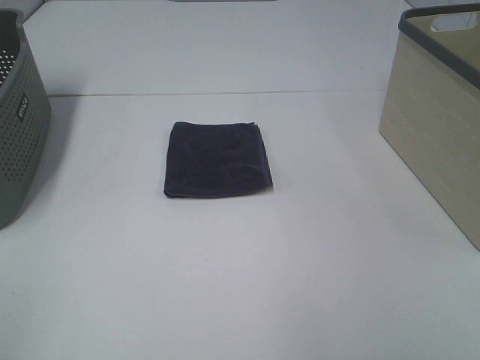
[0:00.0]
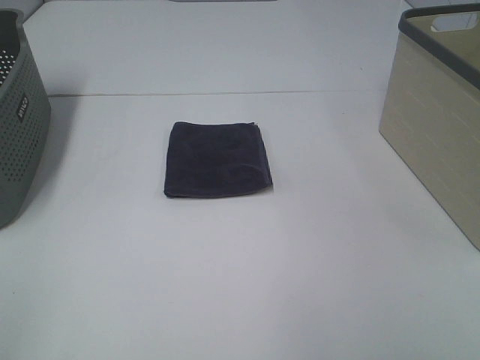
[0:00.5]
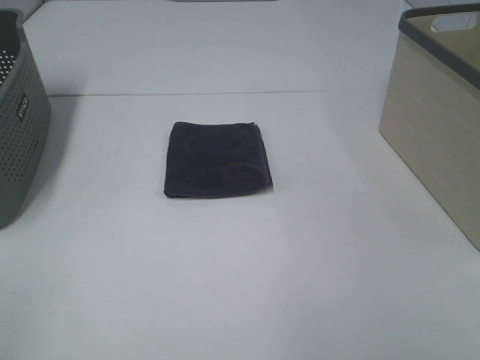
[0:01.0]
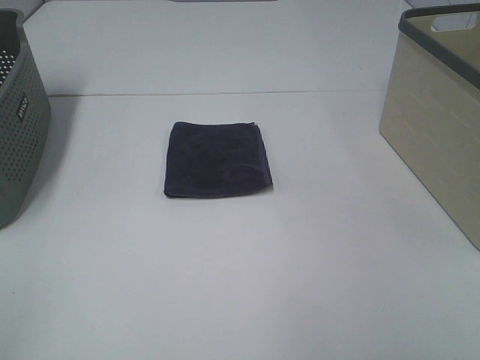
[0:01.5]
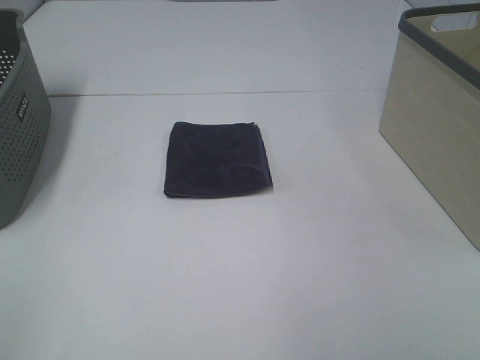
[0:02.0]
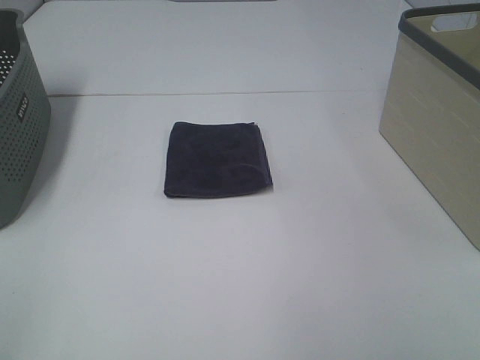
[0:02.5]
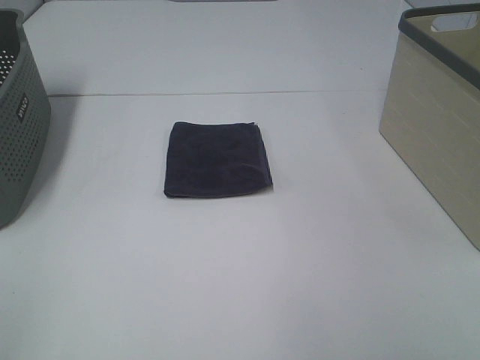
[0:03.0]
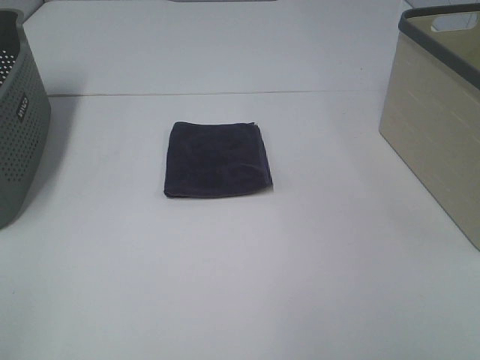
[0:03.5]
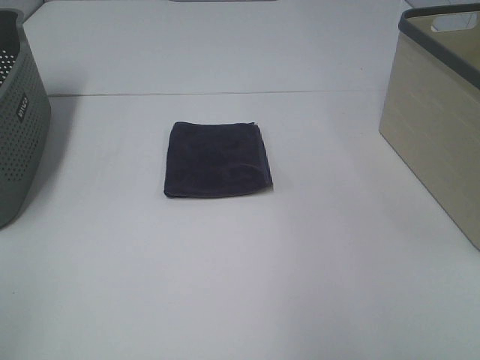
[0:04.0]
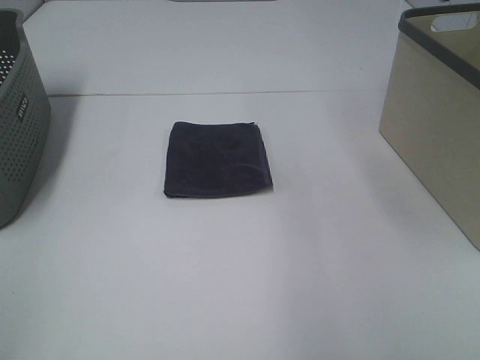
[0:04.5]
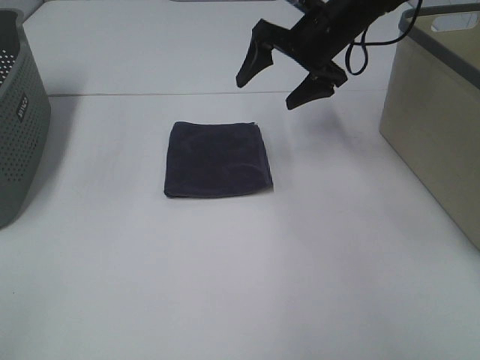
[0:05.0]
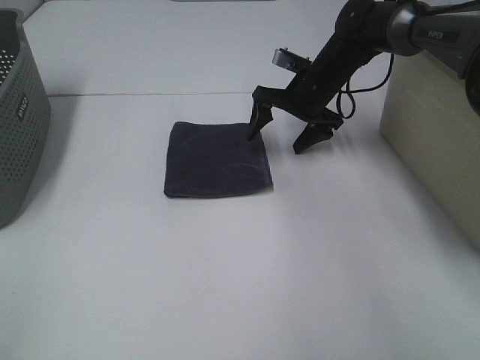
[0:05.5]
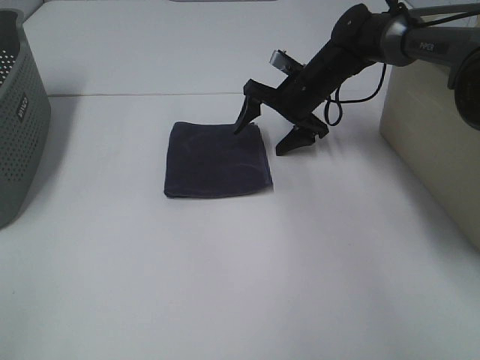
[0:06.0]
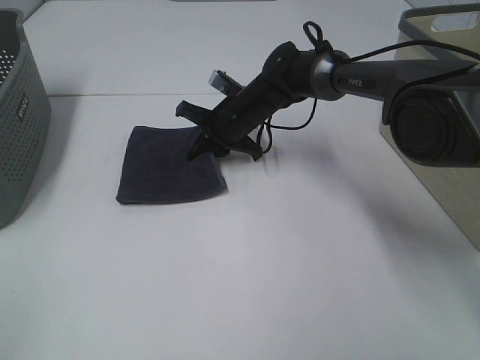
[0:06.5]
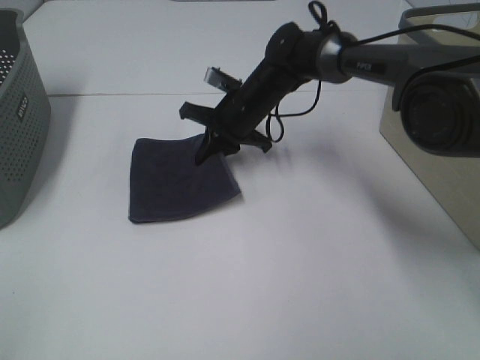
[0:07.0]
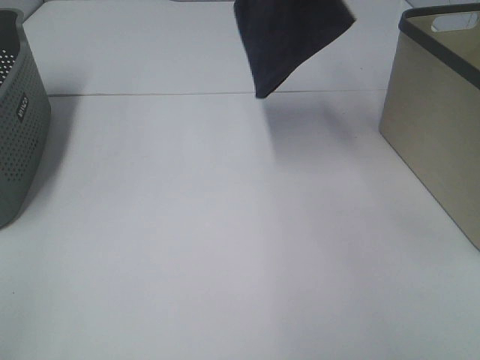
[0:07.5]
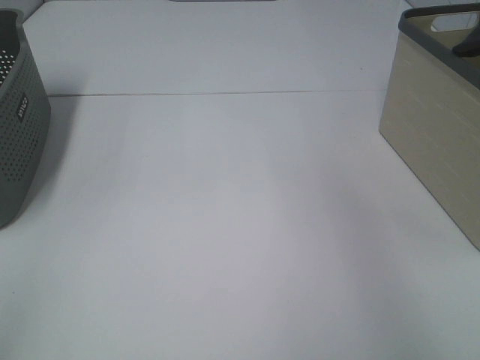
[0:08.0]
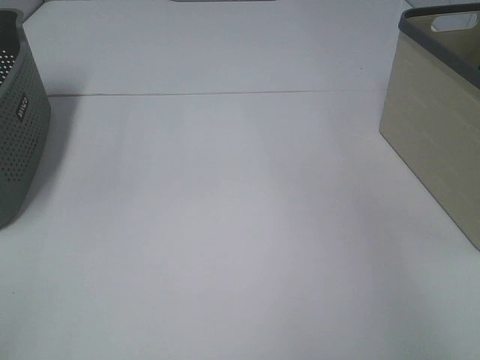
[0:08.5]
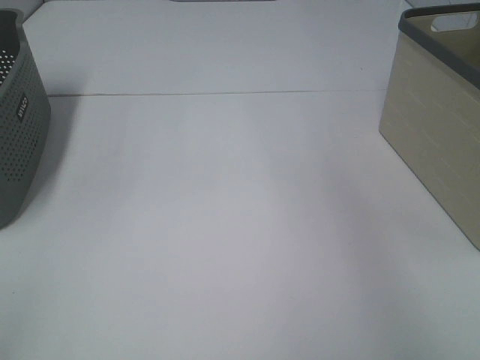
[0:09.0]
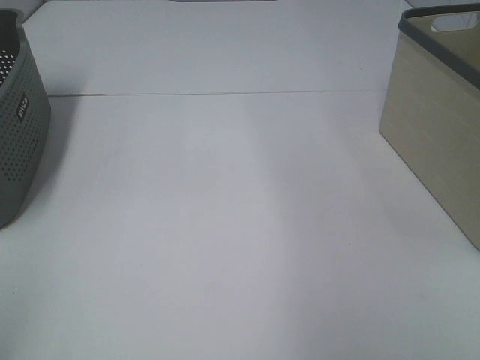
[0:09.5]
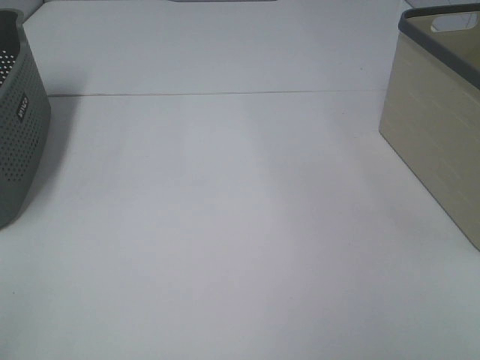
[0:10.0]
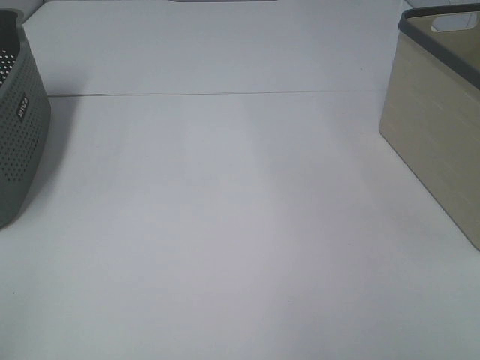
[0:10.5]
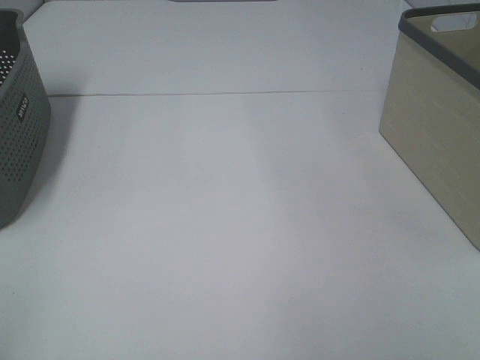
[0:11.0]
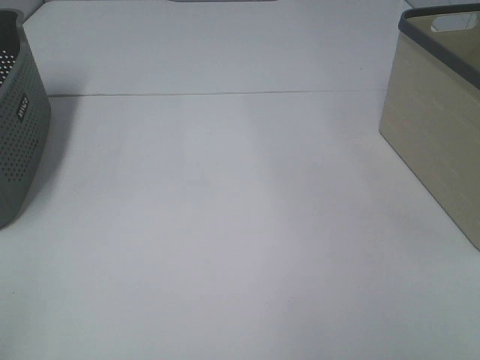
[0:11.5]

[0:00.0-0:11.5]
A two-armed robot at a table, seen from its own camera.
Step, 0:00.0 to 0:06.0: Right hand: grab the folded grey towel.
Step, 0:06.5 to 0:08.5: Right hand: place the grey towel in right basket.
0:00.0 to 0:02.0: Neither gripper changes place.
0:04.0 to 0:06.0: The right gripper travels forward, downward and to the left by some 50 cm.
0:06.0 to 0:07.5: The right gripper heads upward, covering approximately 25 cm, and closes up.
0:07.5 to 0:09.5: The right gripper moves backward and to the right, about 30 cm, and opens.

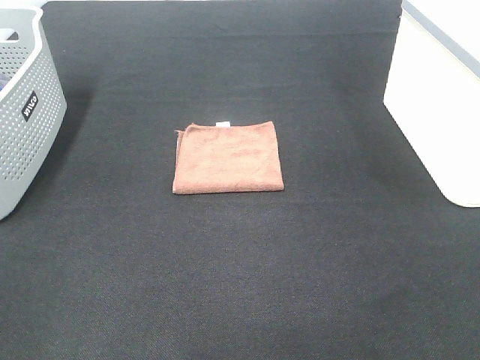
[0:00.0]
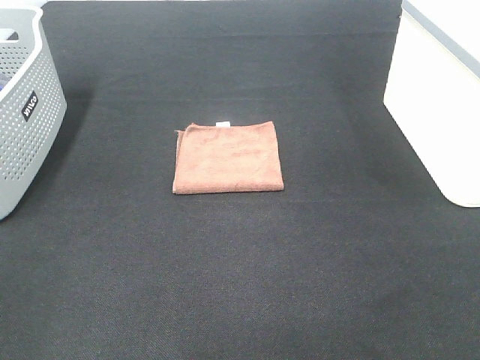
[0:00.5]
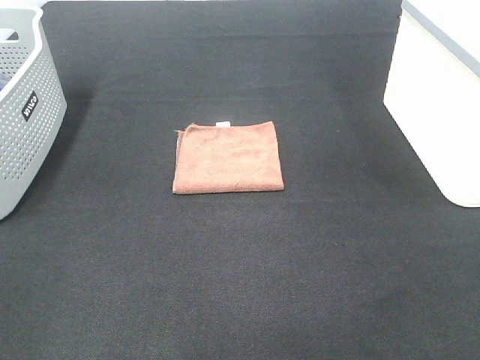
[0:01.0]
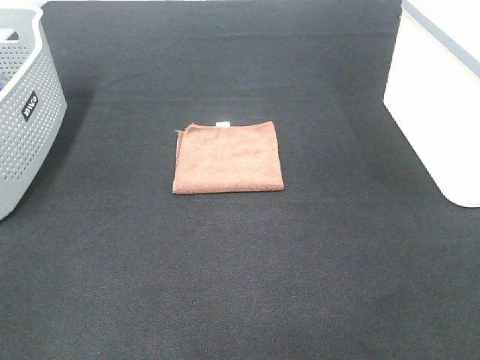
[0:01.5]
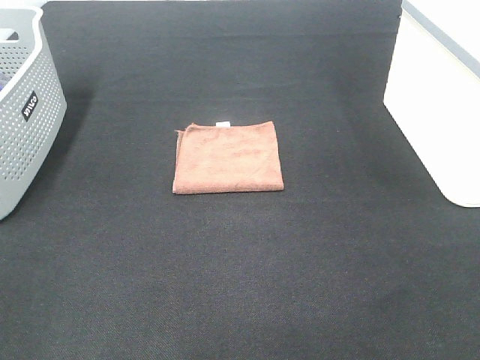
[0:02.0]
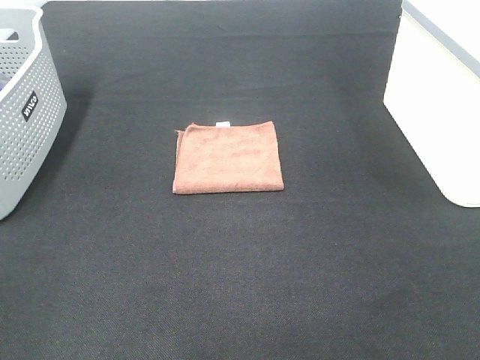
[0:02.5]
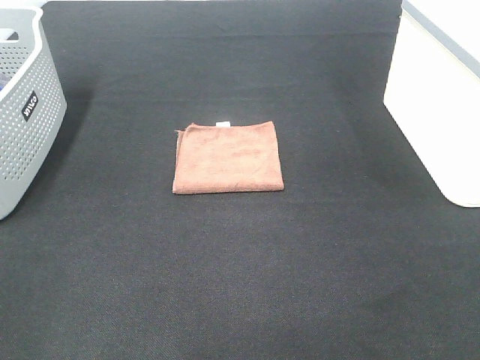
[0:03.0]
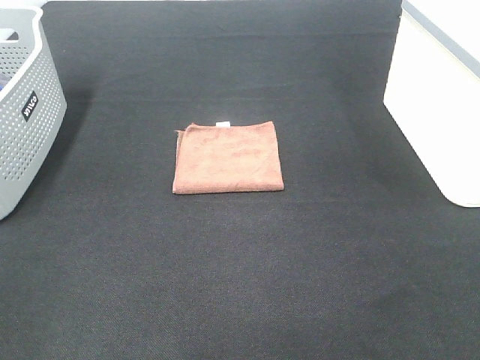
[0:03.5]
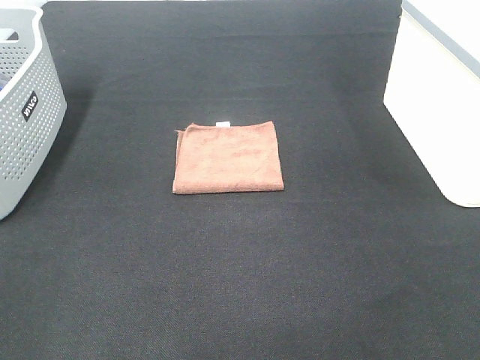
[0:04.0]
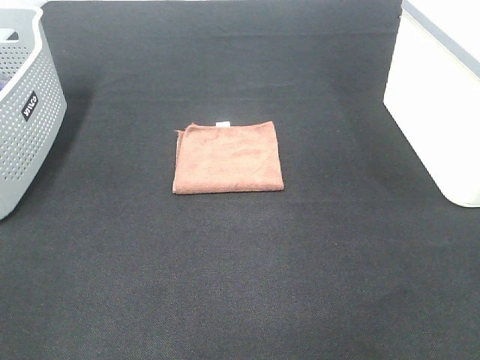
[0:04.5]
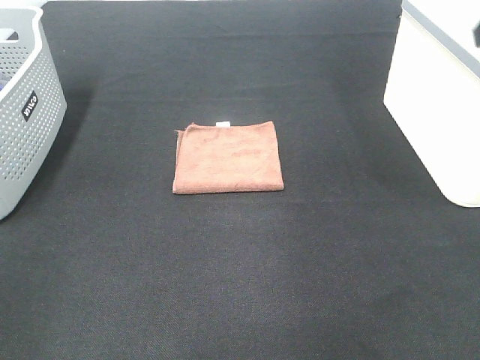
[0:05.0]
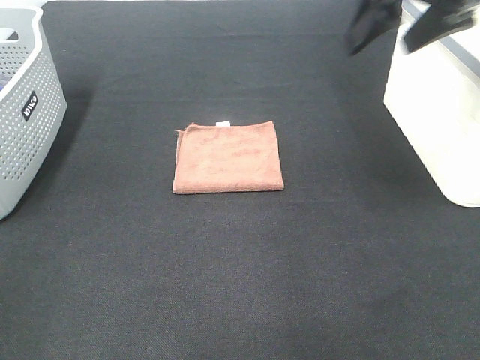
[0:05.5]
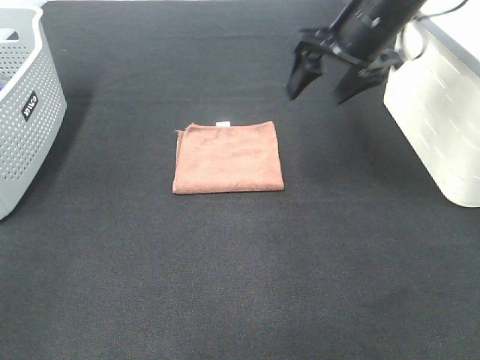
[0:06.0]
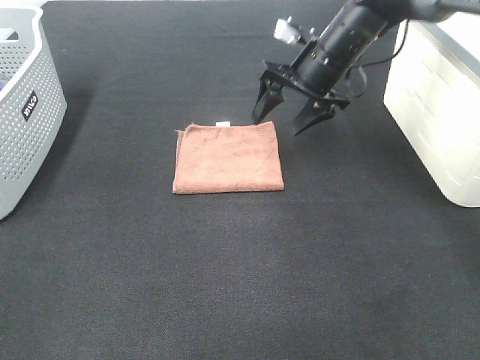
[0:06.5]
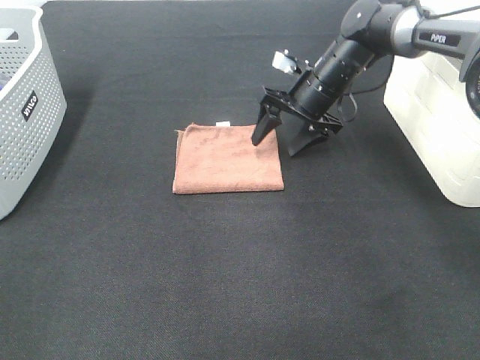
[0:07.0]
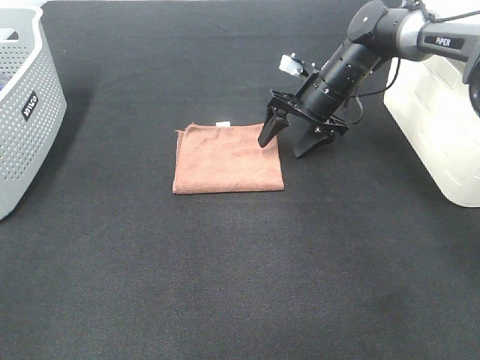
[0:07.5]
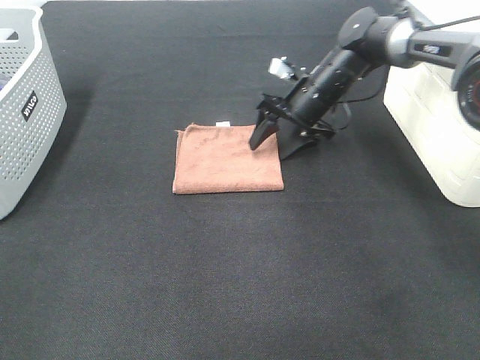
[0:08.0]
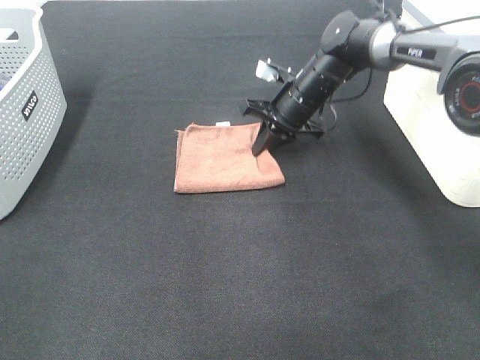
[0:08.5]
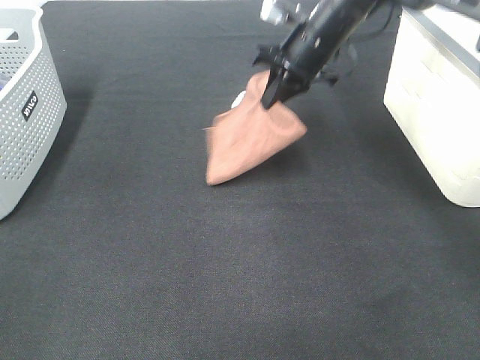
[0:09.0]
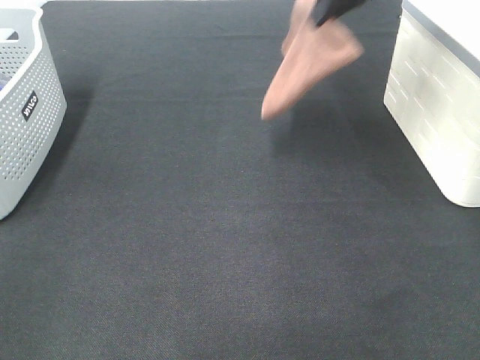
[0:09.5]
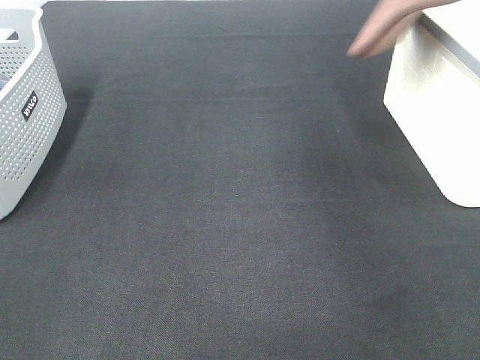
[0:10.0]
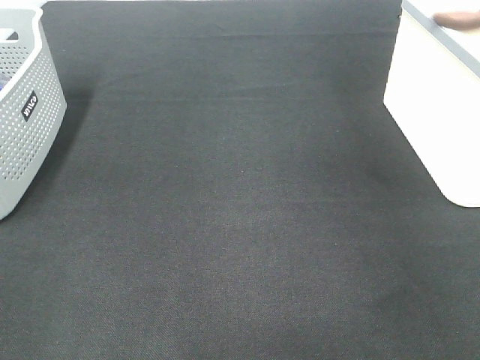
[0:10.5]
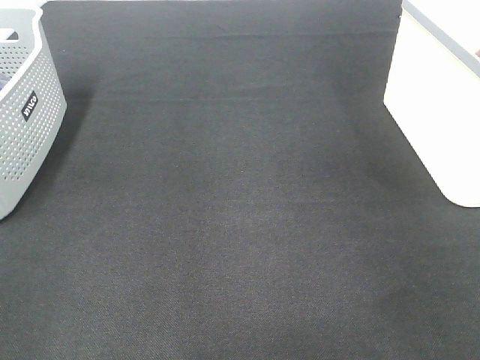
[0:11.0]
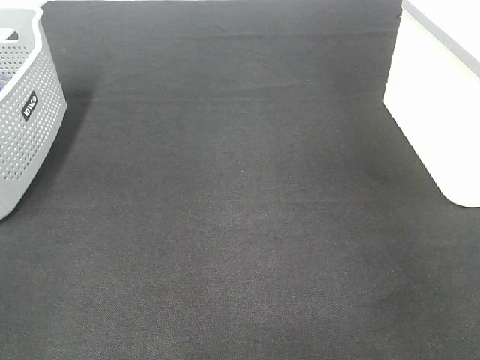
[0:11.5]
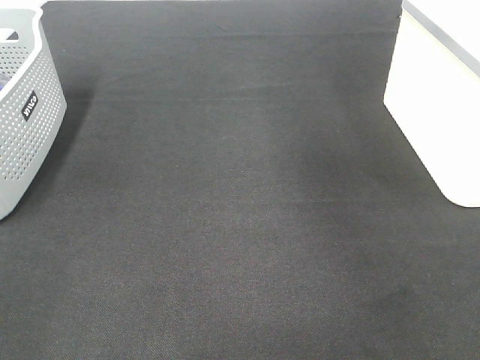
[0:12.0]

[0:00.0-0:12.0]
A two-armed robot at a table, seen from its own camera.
Step, 0:00.0 to 0:08.0: Right hand: grab the folded brown towel.
Step, 0:08.5 to 0:11.0: Right hand: place the brown towel in right basket.
0:00.0 to 0:02.0: Both grippers stay put.
0:04.0 to 0:06.0: The right gripper is displaced forward by approximately 40 cm.
0:06.0 to 0:08.0: The right gripper goes some 15 cm downward and forward.
0:08.0 to 0:10.0: The right gripper goes about 35 cm upward and to the right, and closes its fingers.
0:10.0 to 0:12.0: The right gripper travels to the right and back again, roughly 10 cm each way, and opens its fingers.

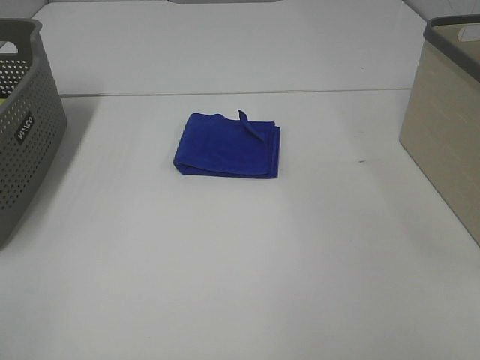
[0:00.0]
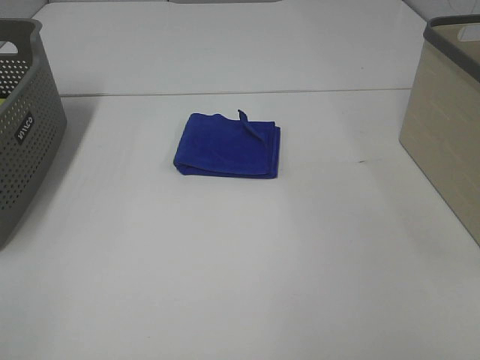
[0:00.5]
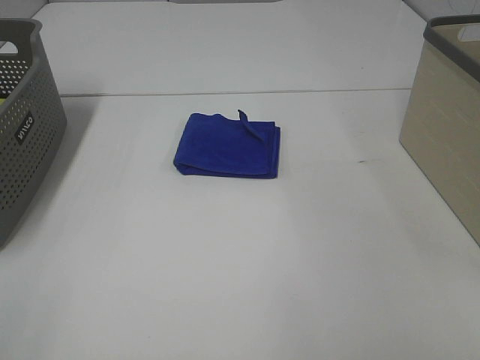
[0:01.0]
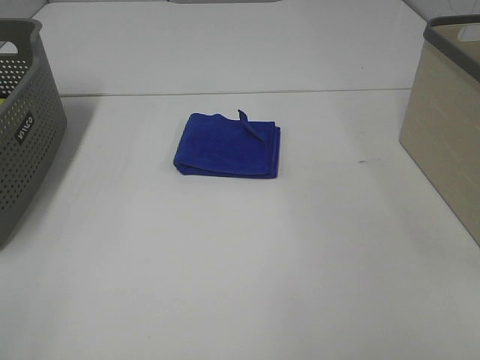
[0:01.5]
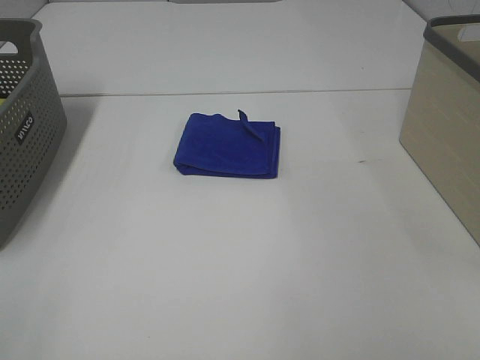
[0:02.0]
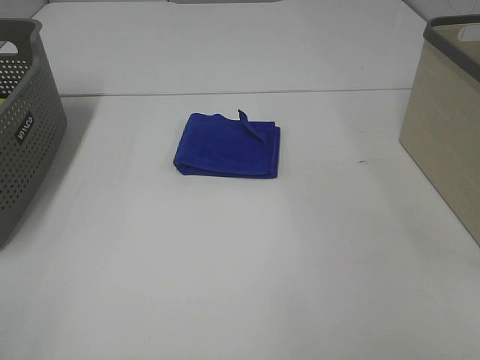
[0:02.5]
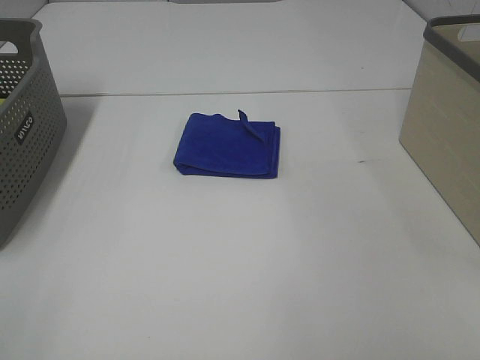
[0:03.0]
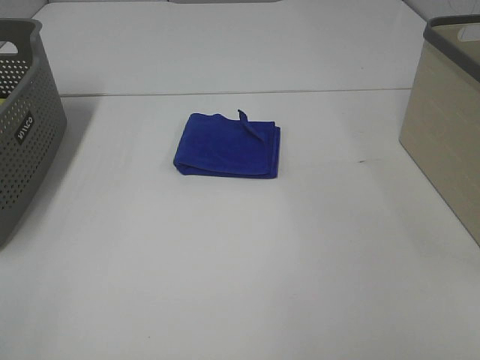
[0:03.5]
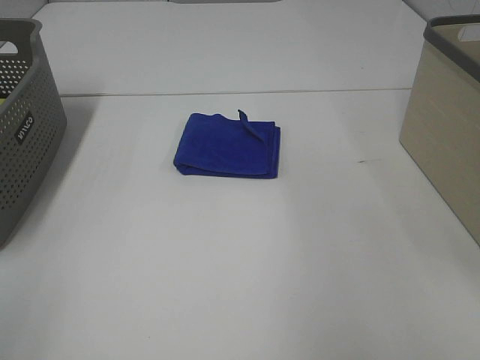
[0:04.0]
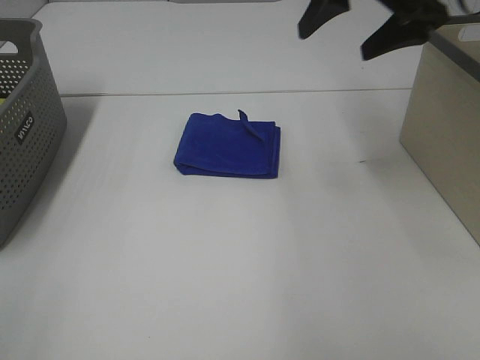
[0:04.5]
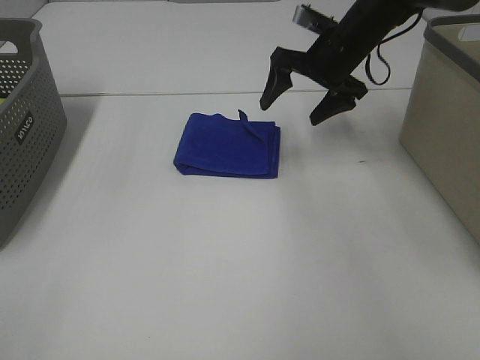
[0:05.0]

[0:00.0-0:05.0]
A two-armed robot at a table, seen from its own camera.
0:00.0 to 0:02.5: Both grippers stay about where they are.
0:02.5 to 0:05.0: The right gripper moves forward, about 50 cm.
